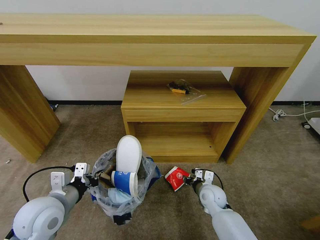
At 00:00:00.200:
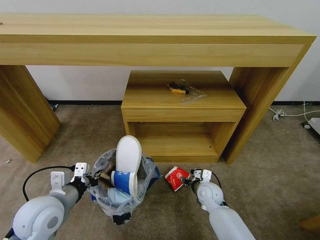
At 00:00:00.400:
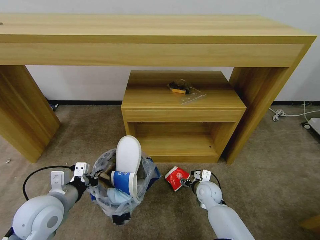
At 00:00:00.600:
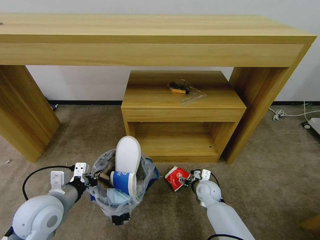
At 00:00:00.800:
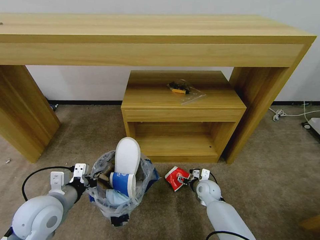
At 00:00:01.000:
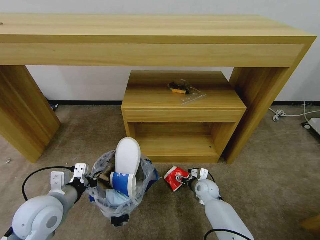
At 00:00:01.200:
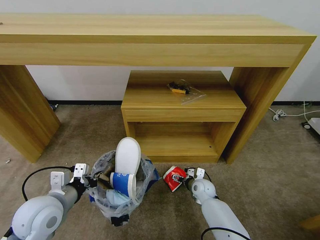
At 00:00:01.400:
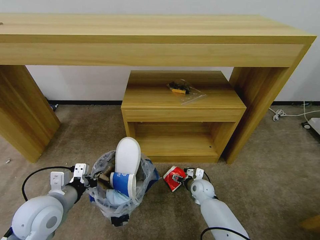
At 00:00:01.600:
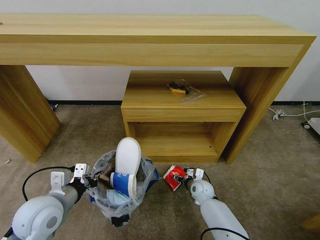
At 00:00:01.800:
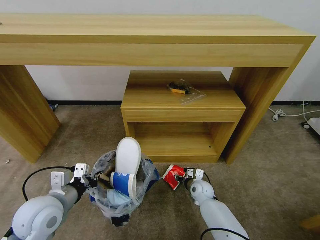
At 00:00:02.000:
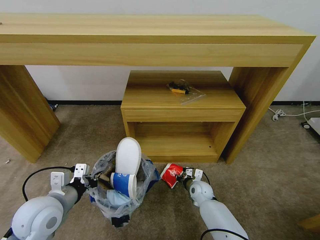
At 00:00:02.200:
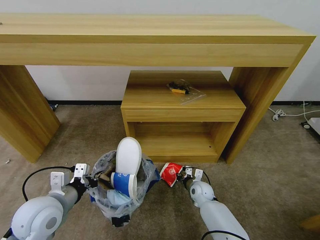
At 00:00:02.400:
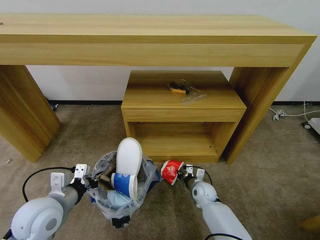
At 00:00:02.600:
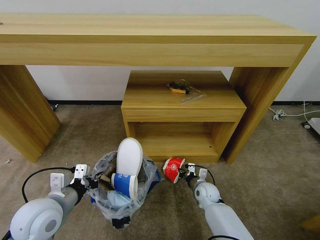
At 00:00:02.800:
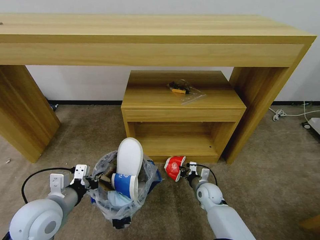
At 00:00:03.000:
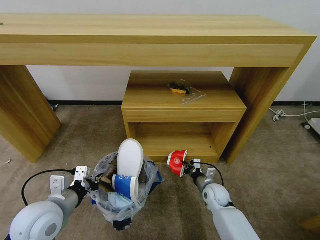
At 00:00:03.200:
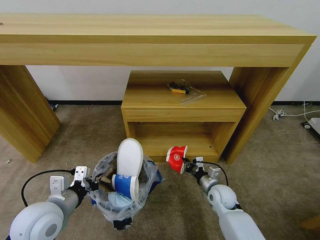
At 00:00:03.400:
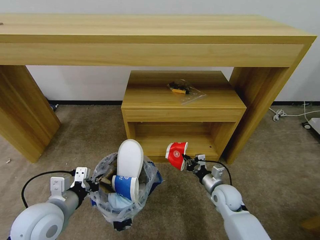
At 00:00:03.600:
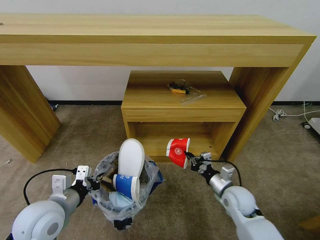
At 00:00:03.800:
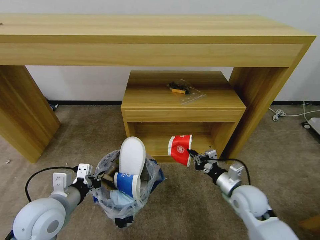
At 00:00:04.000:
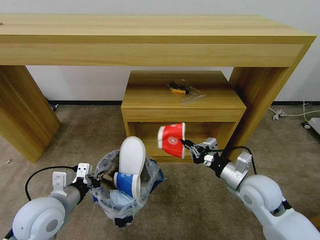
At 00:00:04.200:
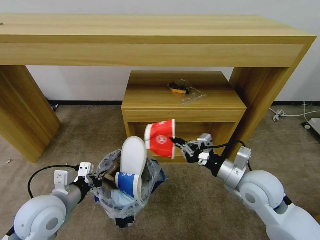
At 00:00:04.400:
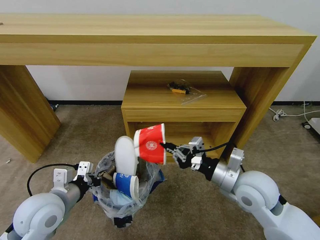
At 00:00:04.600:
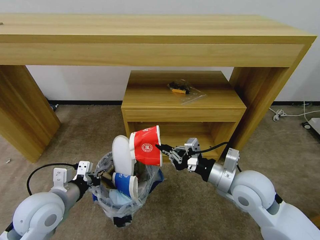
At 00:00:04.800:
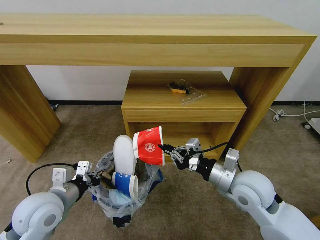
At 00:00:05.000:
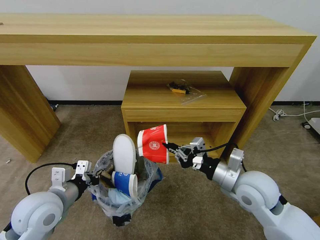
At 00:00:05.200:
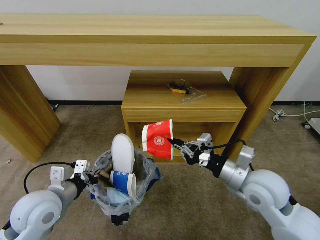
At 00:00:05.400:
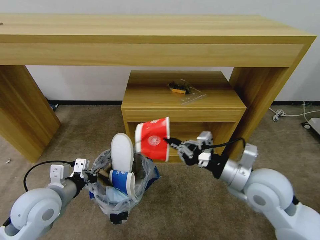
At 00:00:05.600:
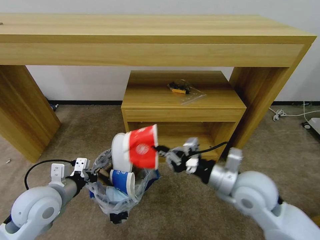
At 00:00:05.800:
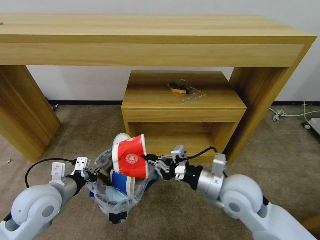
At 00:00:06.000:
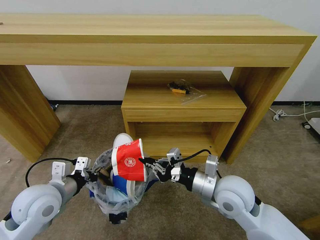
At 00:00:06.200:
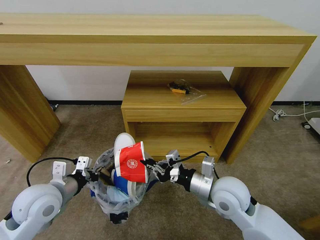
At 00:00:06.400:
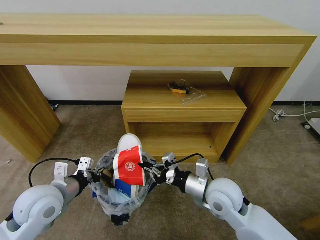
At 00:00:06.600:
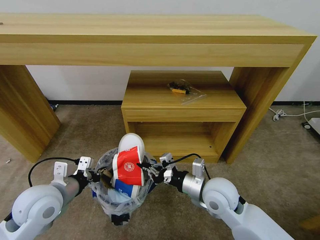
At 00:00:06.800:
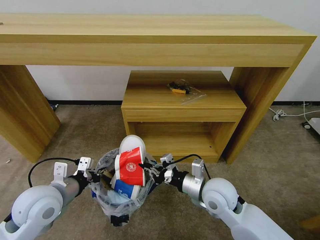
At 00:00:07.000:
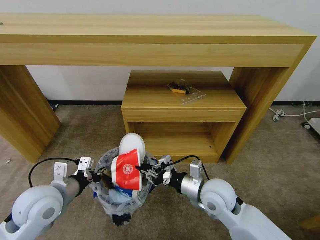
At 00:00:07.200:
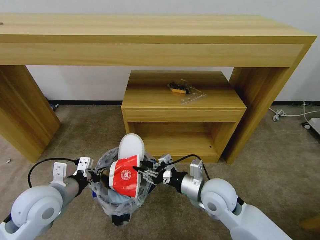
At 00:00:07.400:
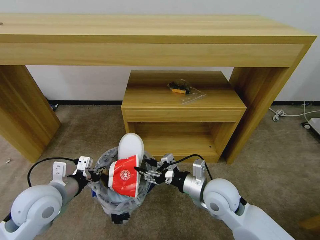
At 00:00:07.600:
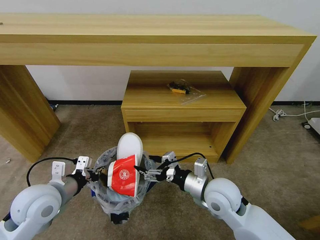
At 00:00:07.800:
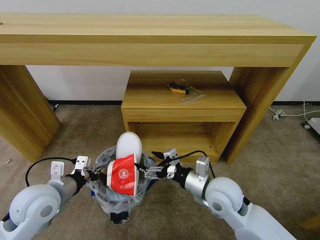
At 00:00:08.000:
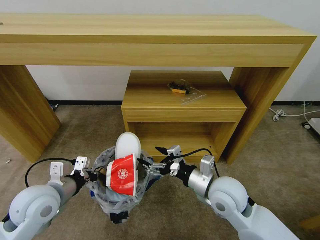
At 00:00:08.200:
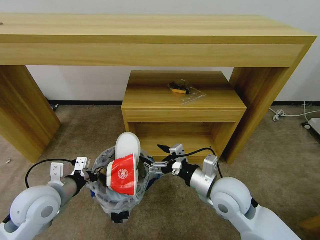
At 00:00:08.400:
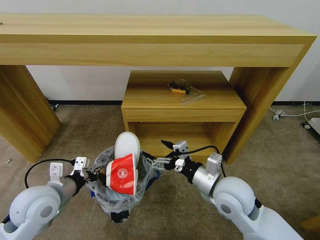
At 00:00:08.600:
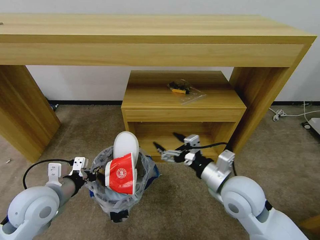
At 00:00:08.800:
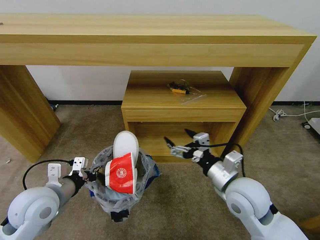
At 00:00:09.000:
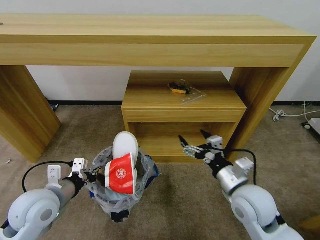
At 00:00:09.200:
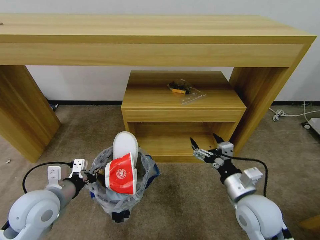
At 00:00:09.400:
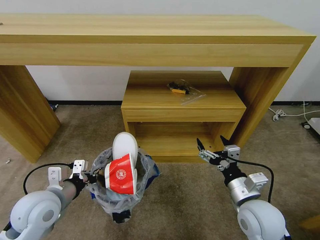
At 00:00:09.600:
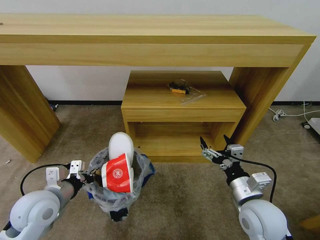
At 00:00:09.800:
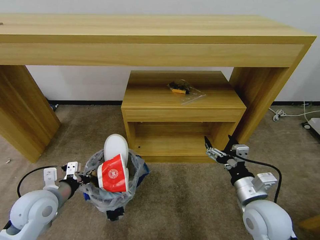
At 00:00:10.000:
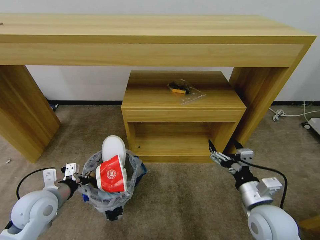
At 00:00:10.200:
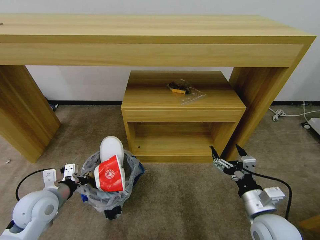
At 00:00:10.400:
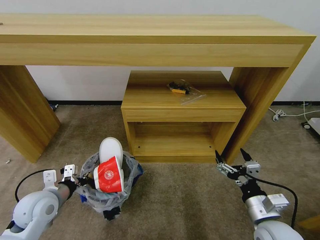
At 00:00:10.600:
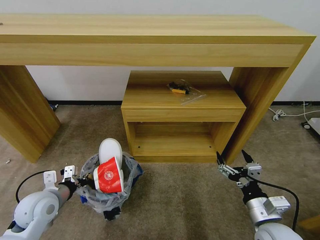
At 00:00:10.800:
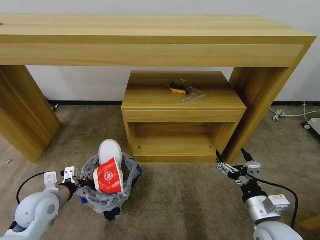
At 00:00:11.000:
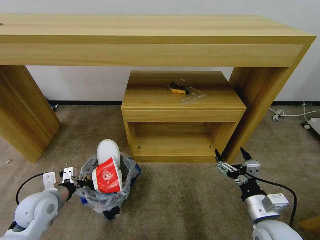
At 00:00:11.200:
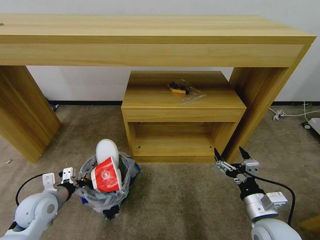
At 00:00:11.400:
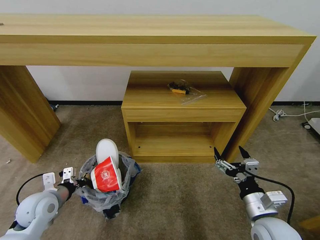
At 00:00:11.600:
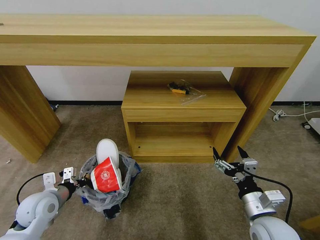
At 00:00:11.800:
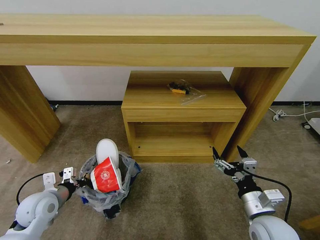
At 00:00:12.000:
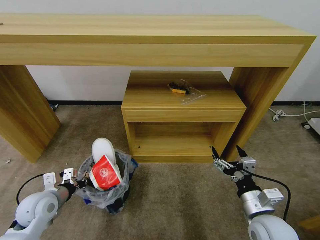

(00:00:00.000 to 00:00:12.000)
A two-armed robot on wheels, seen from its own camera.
Task of the whole recording: Pick up the trash bin and place the garbage on the floor into it.
00:00:00.000 - 00:00:01.600: The right gripper goes approximately 10 cm downward and forward.
00:00:01.600 - 00:00:03.000: The right gripper moves roughly 5 cm, and closes.
00:00:03.000 - 00:00:04.400: The right gripper goes approximately 25 cm upward.
00:00:04.400 - 00:00:06.000: The grippers make only small movements.
00:00:06.000 - 00:00:07.600: The right gripper opens up.
00:00:07.600 - 00:00:09.000: The right gripper goes approximately 5 cm to the right.
00:00:09.000 - 00:00:10.400: The left gripper moves downward, some 5 cm, while the right gripper travels backward, to the right and downward by about 10 cm.
00:00:10.400 - 00:00:12.000: The grippers move only a little.

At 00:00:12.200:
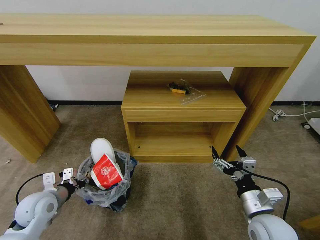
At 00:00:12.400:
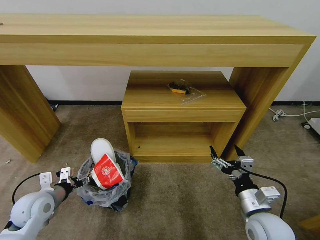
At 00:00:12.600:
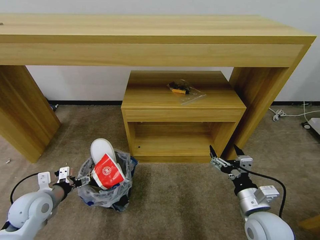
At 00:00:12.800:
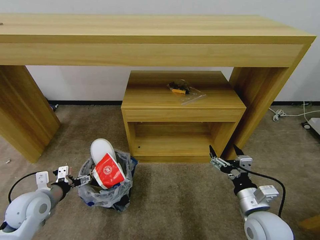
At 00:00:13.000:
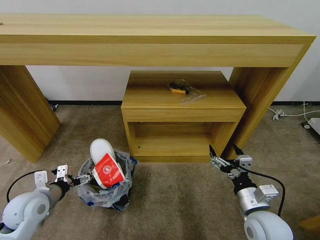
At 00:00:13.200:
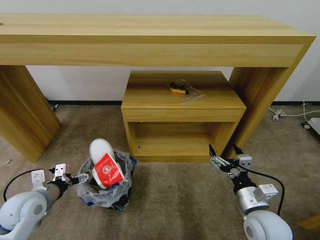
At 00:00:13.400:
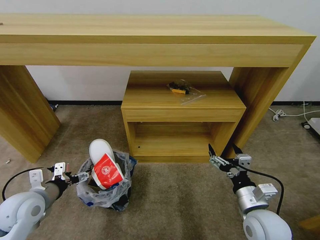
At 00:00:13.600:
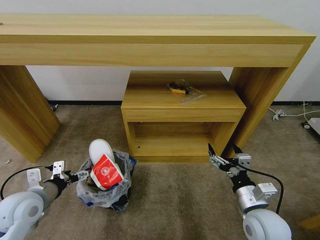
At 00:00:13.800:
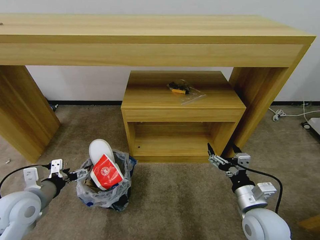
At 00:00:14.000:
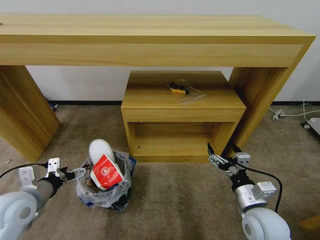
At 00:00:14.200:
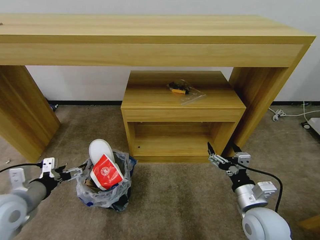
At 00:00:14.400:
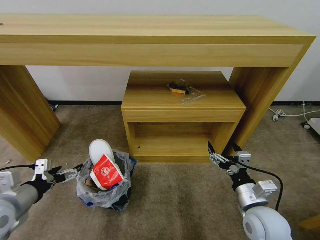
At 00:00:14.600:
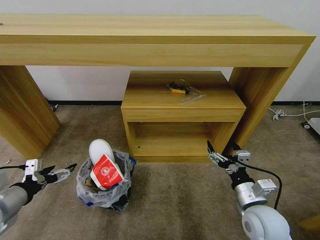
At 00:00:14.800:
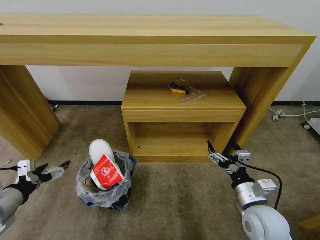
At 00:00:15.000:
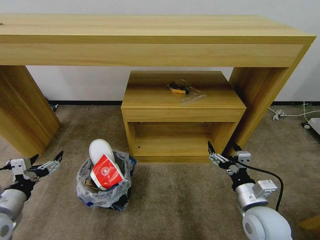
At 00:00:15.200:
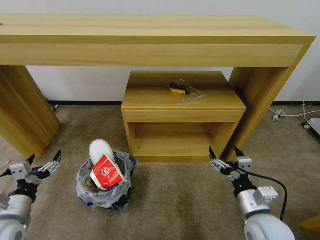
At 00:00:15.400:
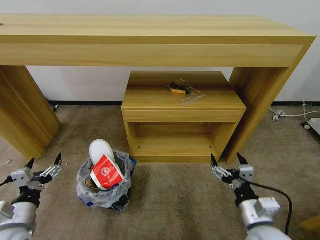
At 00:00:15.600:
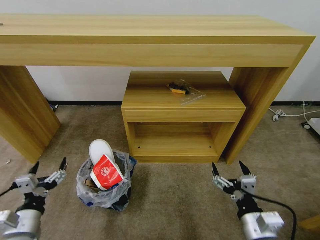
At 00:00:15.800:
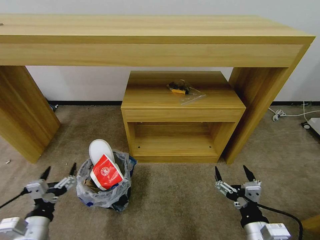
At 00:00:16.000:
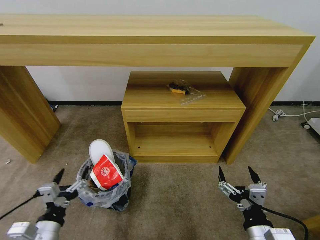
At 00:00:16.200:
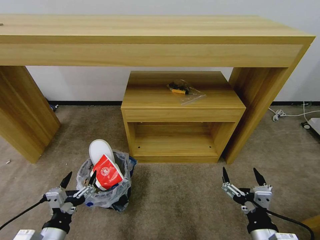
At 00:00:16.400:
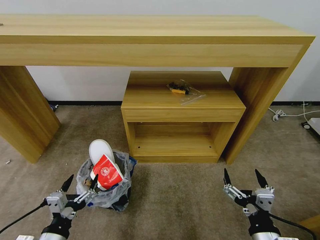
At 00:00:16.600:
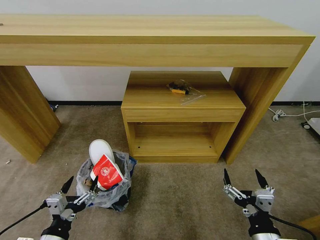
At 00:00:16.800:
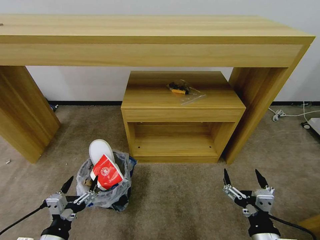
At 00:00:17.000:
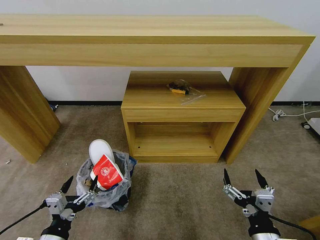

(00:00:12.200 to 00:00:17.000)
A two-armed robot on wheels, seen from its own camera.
Task of the whole recording: Pick up the trash bin and place the garbage on the floor into it.
00:00:12.200 - 00:00:13.800: The left gripper heads upward, covering roughly 5 cm, and opens.
00:00:13.800 - 00:00:15.400: The left gripper travels backward and downward by approximately 10 cm.
00:00:15.400 - 00:00:17.000: The left gripper moves to the right and backward, approximately 10 cm; the right gripper moves backward, roughly 10 cm.
